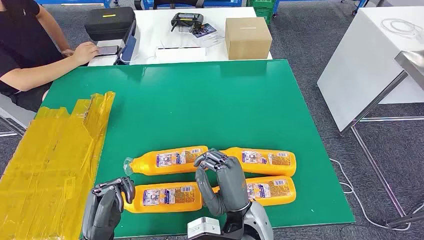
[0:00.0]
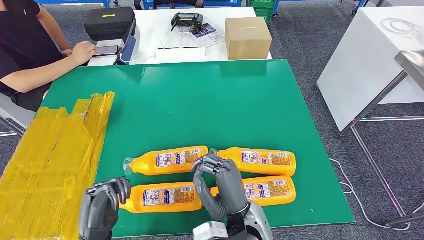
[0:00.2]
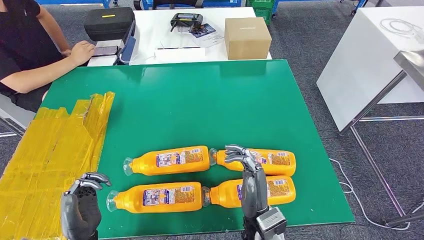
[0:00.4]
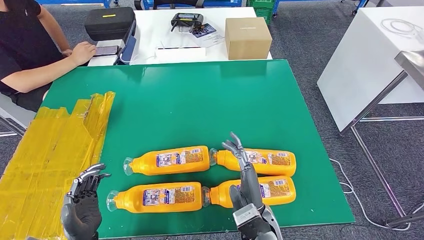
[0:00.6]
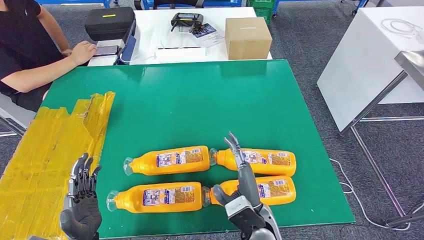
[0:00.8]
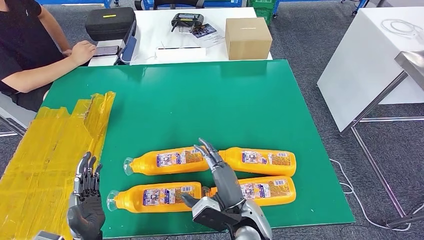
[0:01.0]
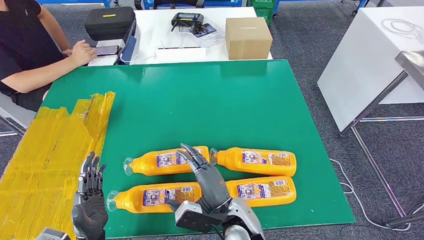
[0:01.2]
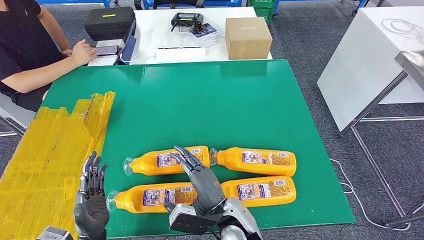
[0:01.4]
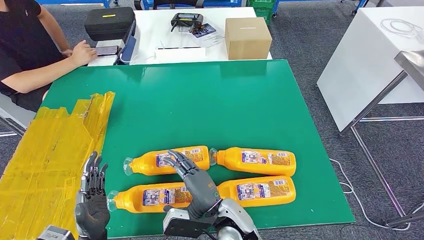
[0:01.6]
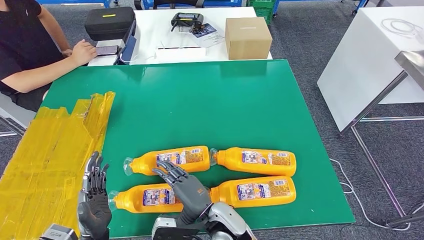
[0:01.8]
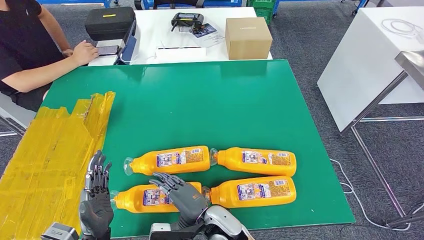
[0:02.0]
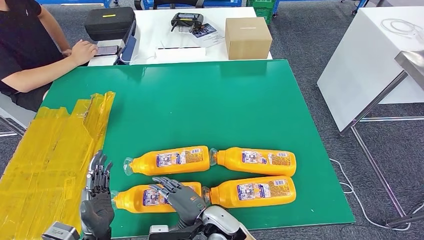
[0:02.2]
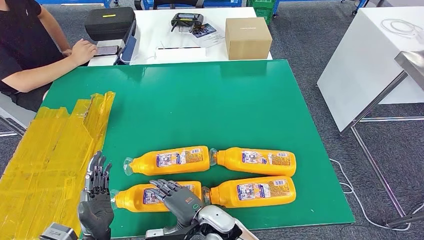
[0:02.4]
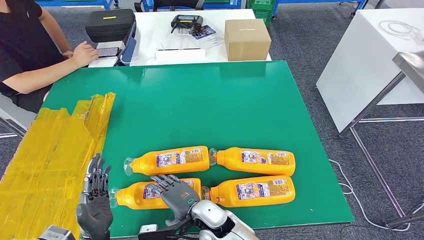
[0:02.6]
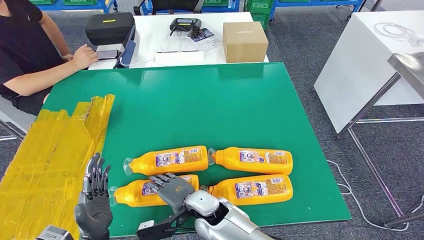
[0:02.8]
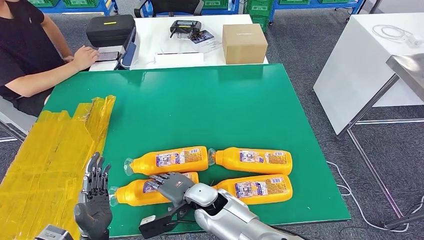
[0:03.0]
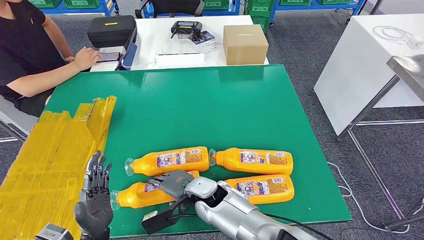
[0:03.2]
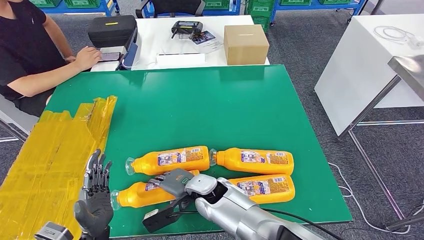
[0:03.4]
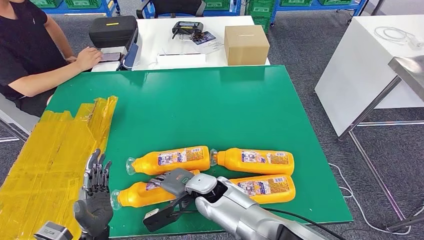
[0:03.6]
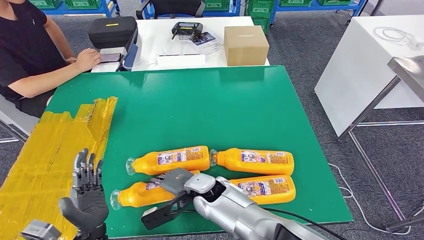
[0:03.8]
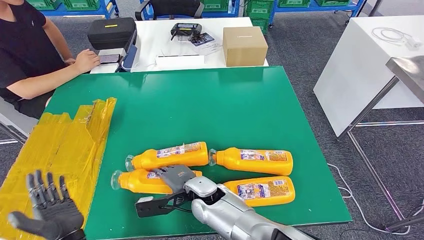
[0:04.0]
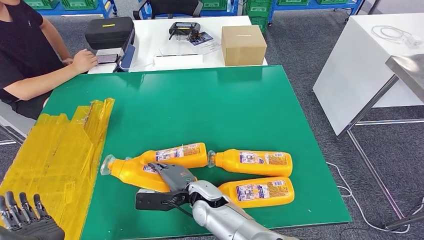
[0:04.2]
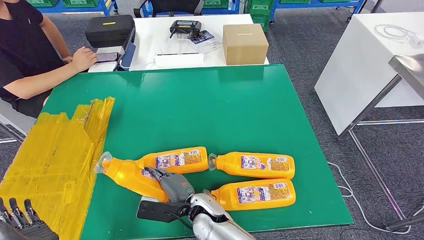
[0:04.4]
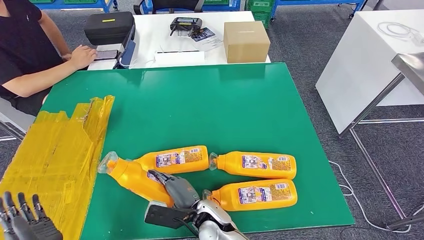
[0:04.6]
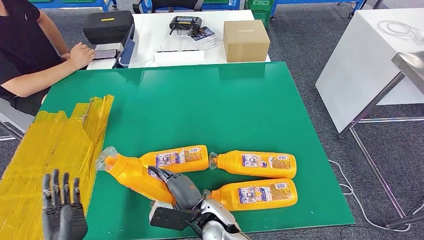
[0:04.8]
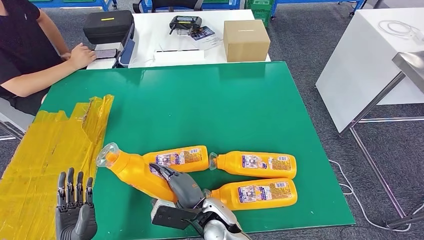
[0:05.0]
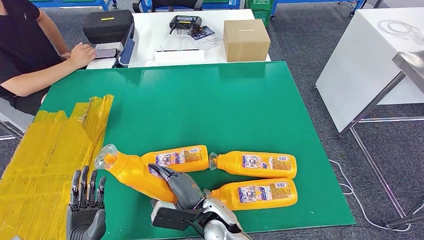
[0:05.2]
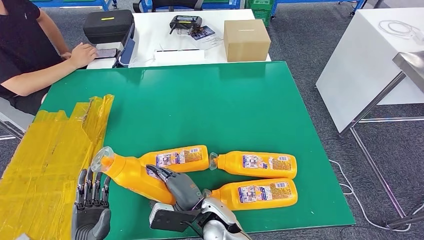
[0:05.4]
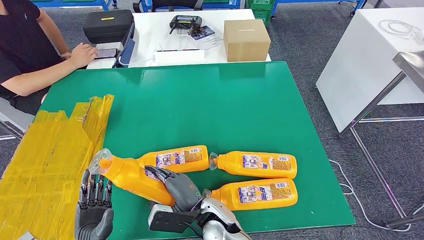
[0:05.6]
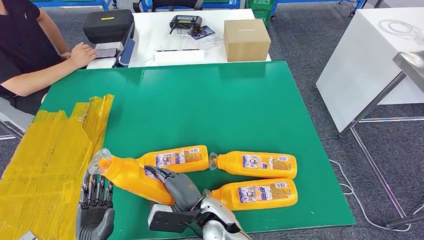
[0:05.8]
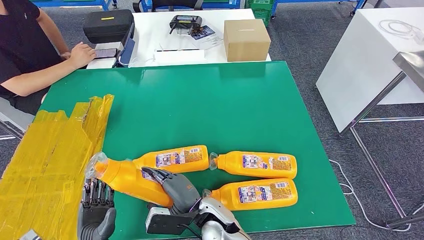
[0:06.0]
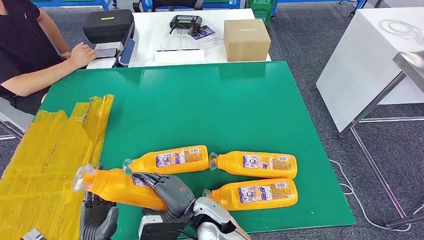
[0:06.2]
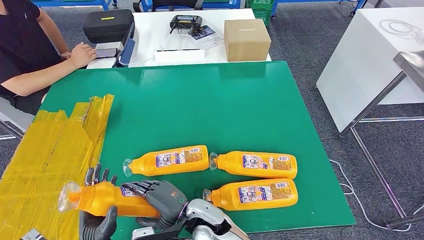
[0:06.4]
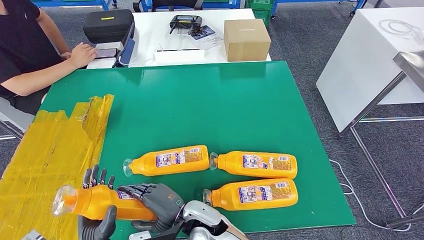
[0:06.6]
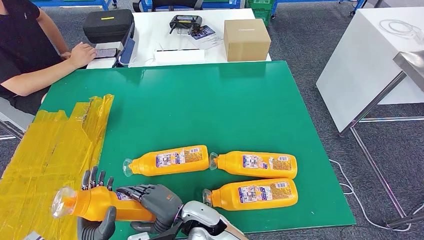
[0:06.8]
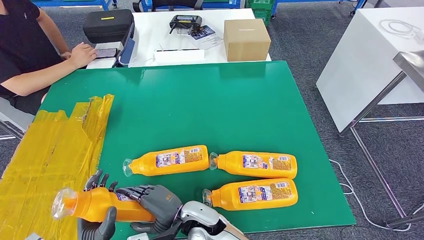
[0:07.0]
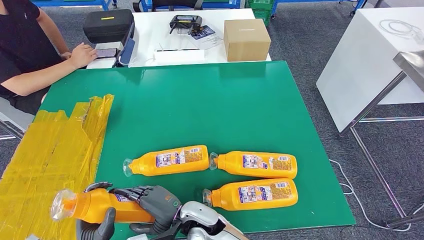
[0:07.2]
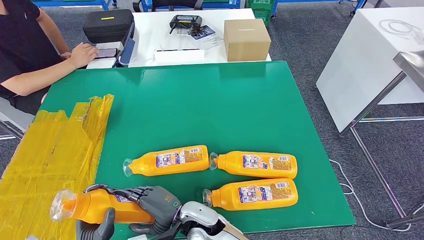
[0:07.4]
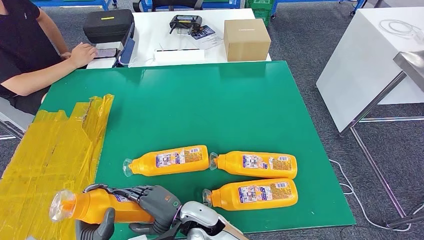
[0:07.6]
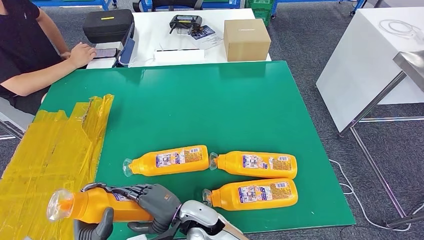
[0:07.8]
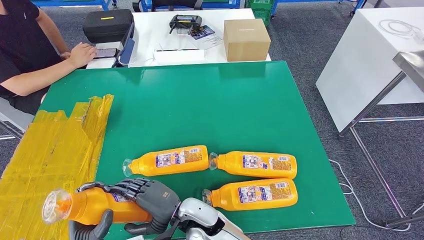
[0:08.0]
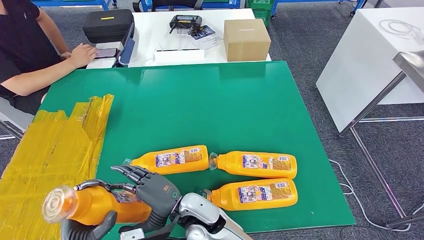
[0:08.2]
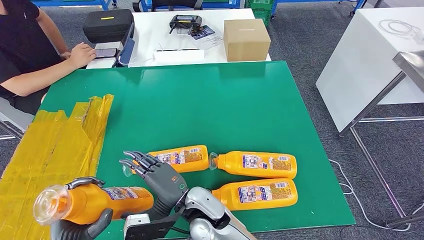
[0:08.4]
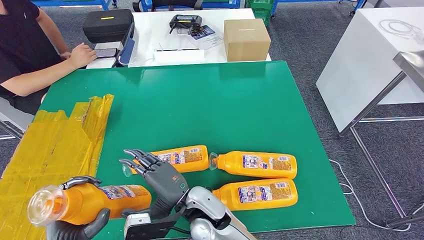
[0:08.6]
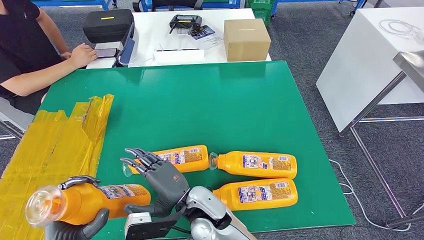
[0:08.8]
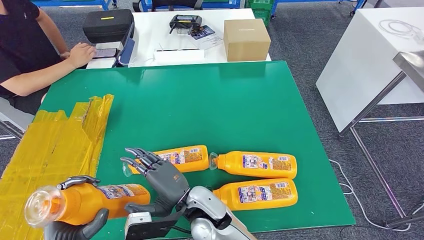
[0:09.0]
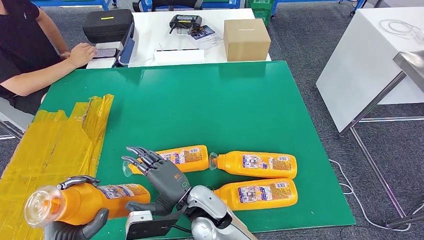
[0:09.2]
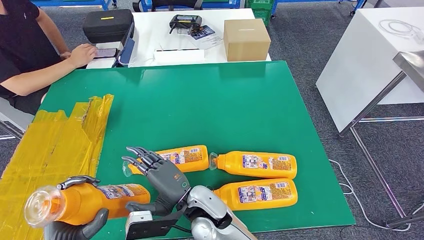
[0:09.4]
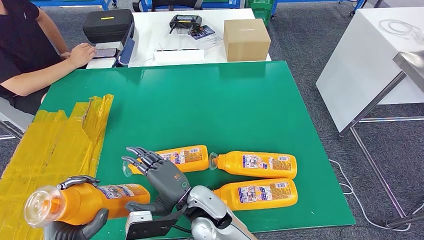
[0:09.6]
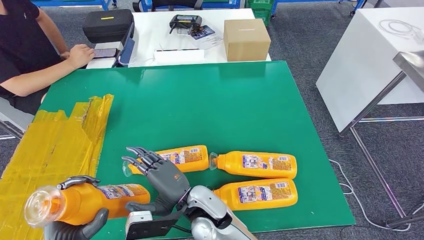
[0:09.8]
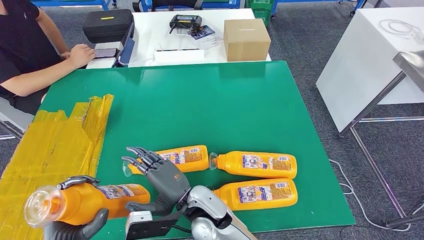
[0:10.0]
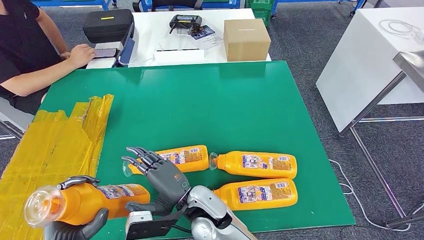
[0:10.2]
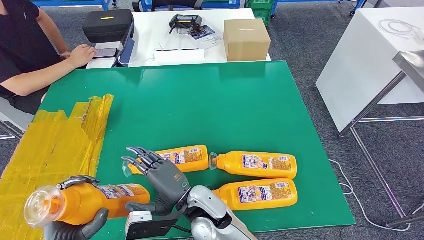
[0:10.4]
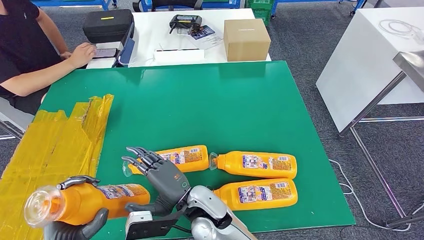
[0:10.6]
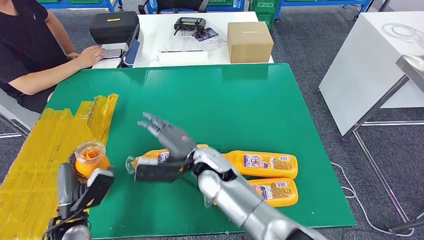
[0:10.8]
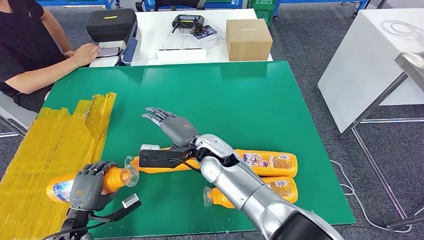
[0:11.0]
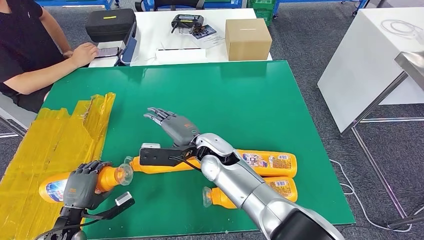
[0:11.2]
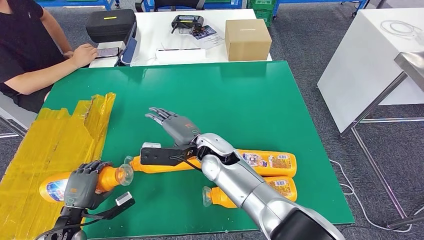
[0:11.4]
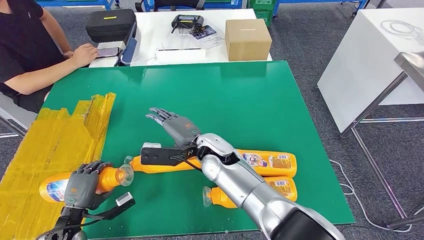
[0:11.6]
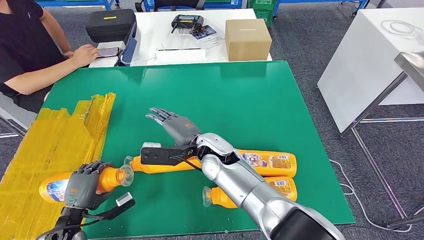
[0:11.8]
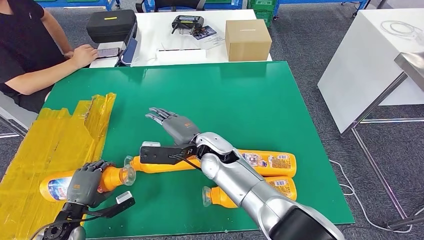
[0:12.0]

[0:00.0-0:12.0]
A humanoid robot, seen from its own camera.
Step, 0:00.0 to 0:08.4: Take the bottle from the table.
0:03.0 to 0:04.4: The left hand moves to the left, about 5 cm.
0:07.6 to 0:09.0: The hands both shift upward by about 5 cm.
0:09.0 to 0:10.4: Neither hand changes place.

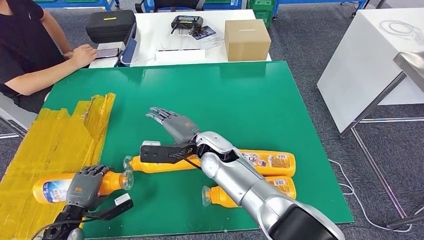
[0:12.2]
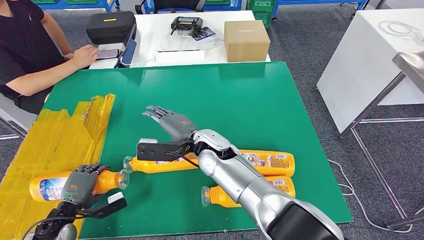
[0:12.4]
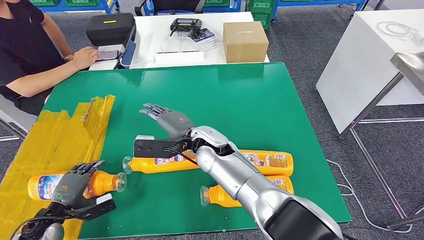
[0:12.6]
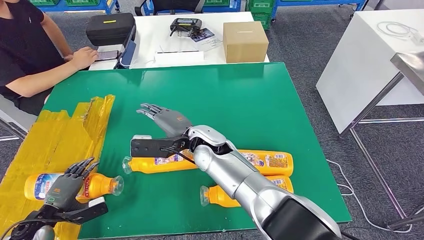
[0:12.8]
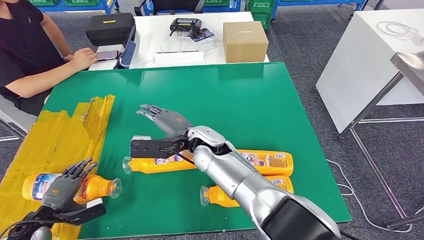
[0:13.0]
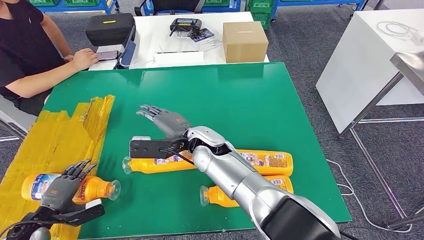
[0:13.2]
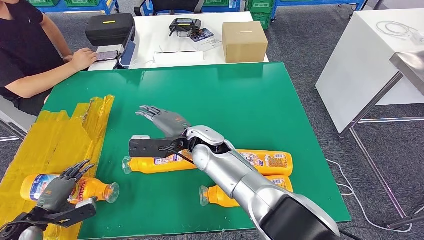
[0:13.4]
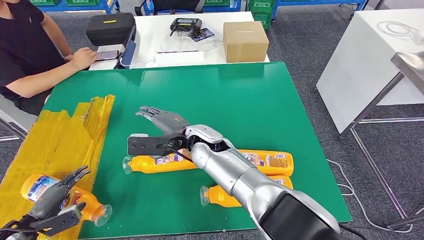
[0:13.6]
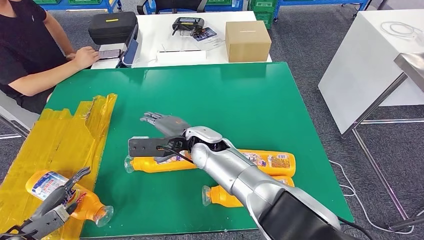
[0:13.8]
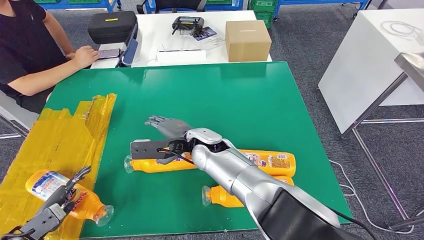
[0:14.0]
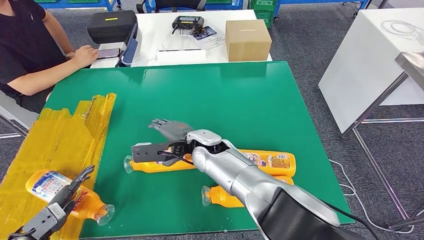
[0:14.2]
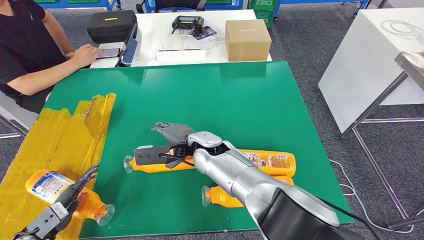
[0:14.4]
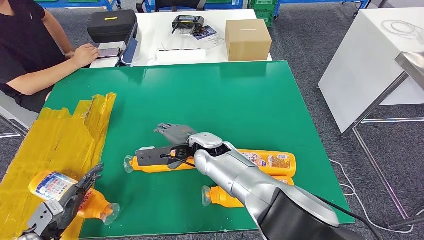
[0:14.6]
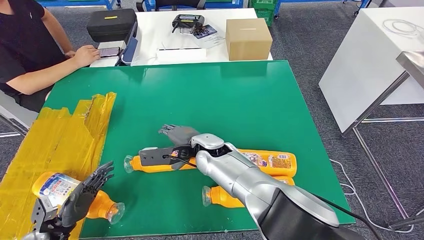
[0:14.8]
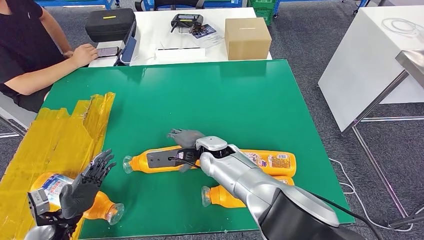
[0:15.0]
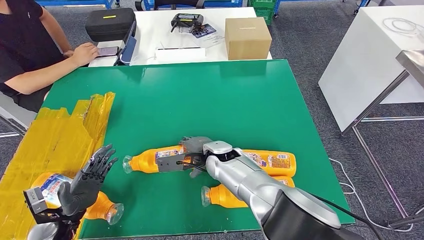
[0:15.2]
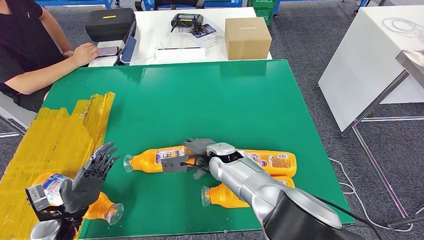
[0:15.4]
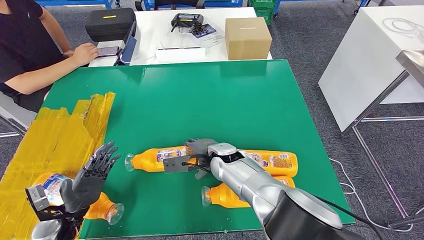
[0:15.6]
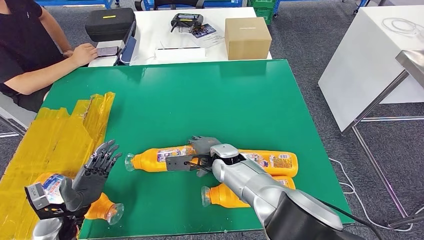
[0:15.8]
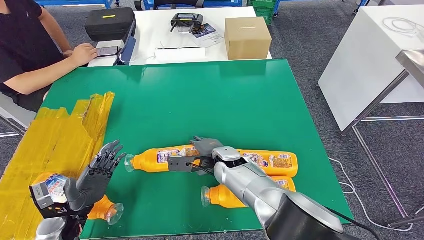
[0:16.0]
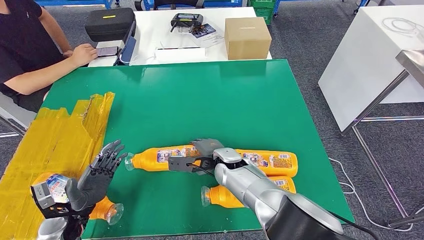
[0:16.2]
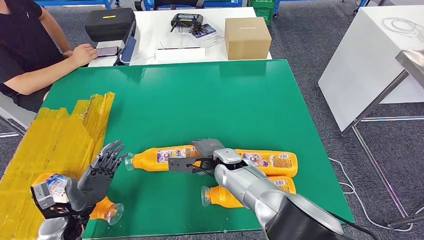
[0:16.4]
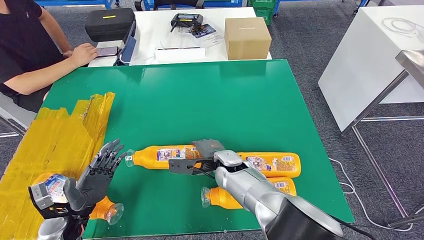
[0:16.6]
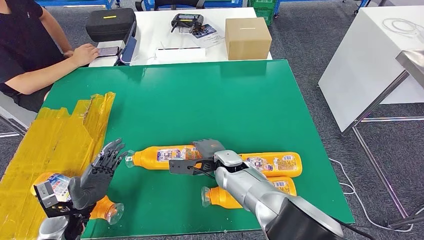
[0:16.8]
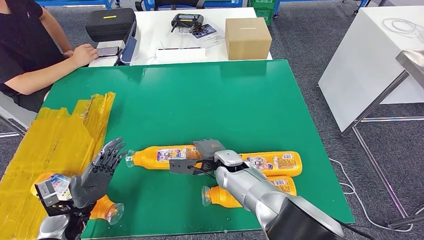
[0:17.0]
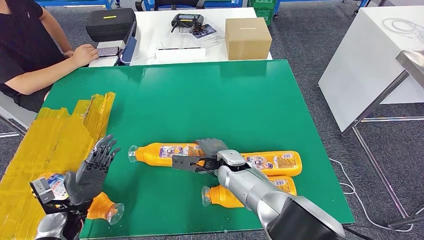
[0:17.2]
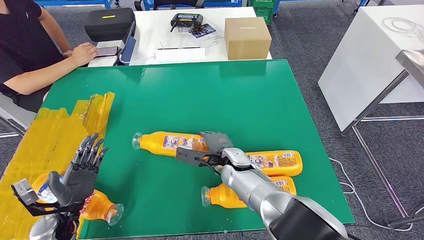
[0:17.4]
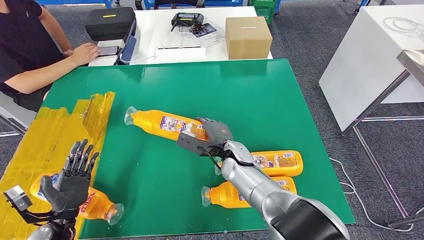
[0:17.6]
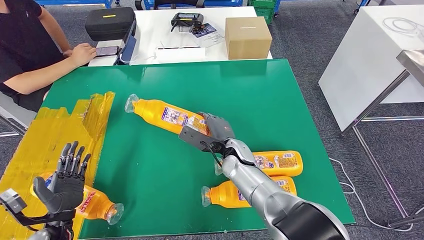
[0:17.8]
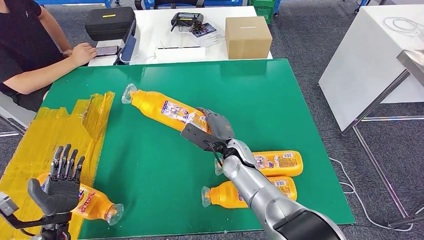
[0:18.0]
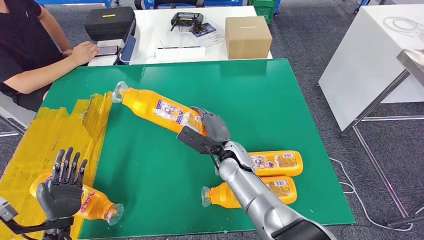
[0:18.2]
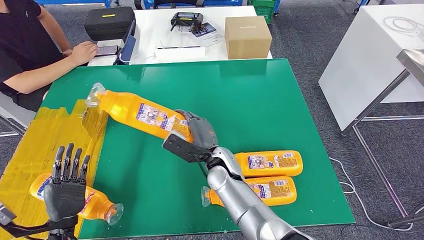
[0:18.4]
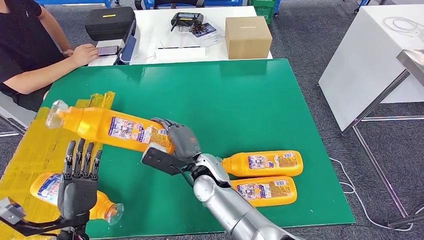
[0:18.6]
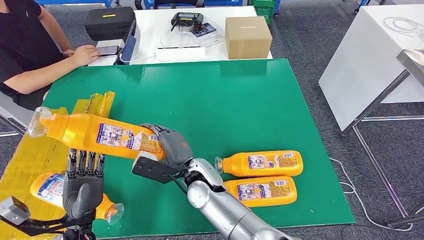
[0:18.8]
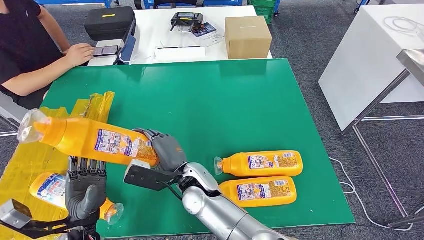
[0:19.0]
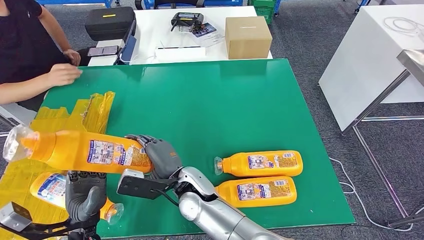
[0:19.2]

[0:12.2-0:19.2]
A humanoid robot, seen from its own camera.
Step, 0:12.2 to 0:15.8: Flip the bottle to face forward.
0:15.0 to 0:16.4: The right hand shifts approximately 5 cm downward.
